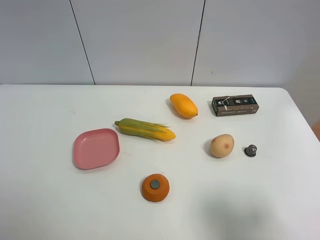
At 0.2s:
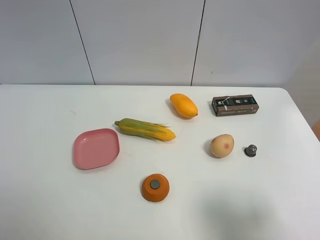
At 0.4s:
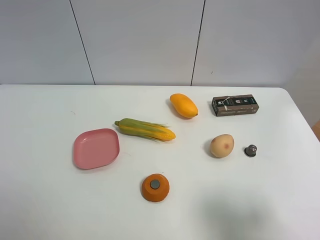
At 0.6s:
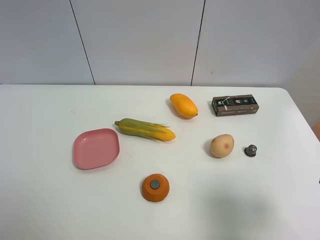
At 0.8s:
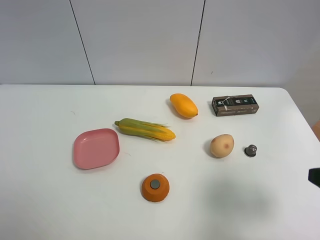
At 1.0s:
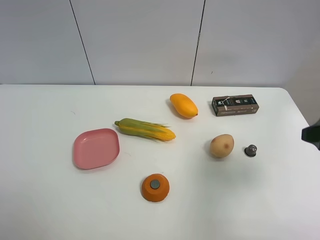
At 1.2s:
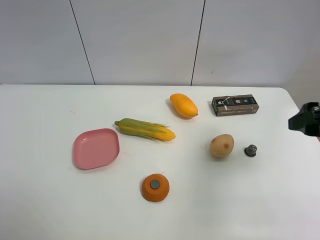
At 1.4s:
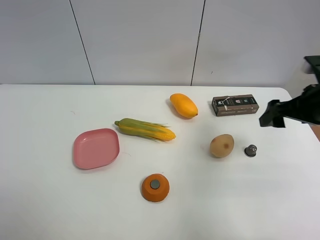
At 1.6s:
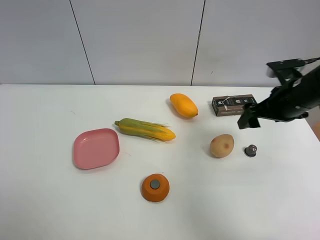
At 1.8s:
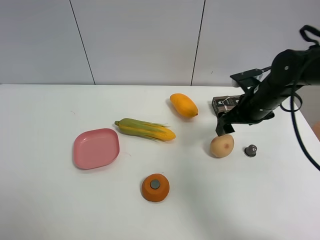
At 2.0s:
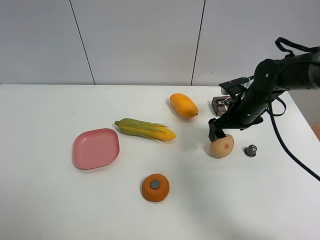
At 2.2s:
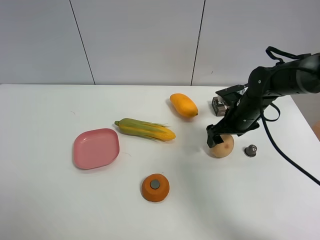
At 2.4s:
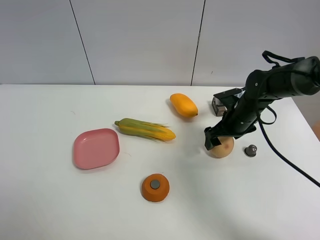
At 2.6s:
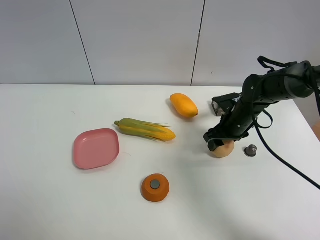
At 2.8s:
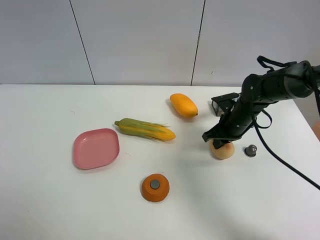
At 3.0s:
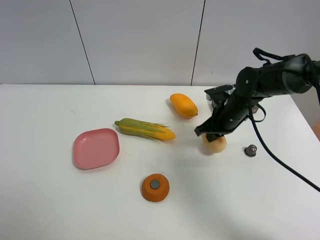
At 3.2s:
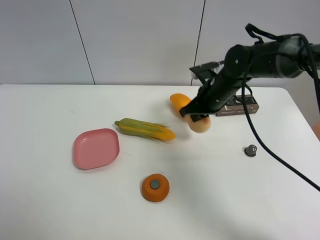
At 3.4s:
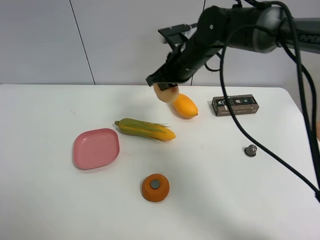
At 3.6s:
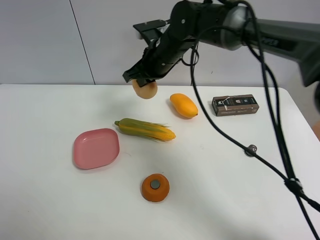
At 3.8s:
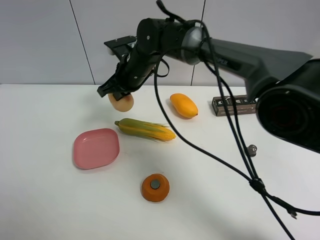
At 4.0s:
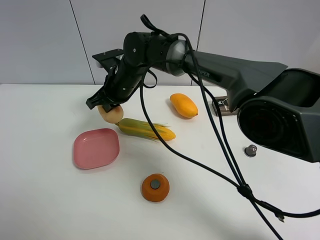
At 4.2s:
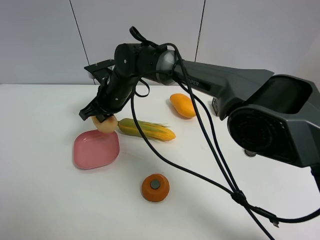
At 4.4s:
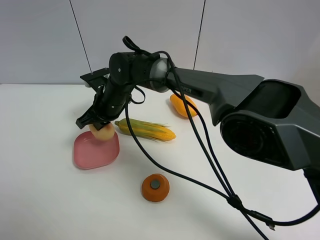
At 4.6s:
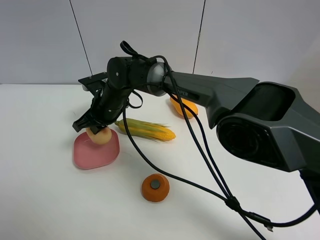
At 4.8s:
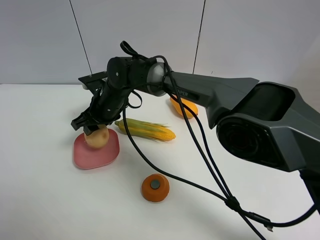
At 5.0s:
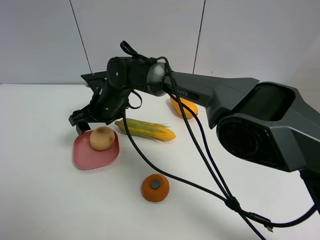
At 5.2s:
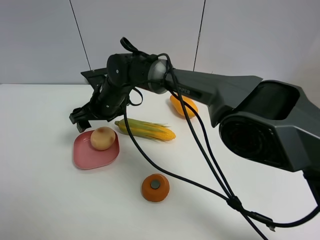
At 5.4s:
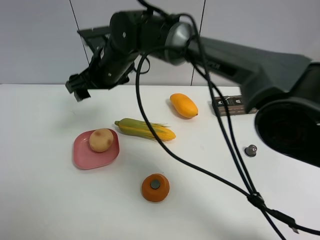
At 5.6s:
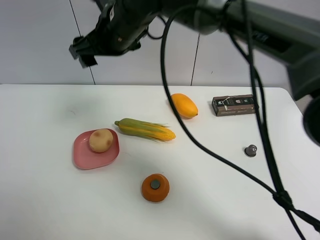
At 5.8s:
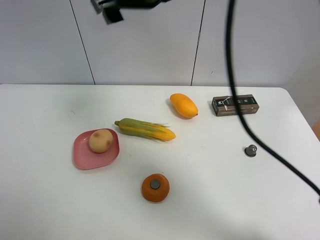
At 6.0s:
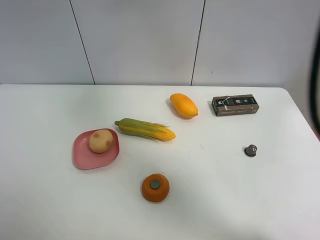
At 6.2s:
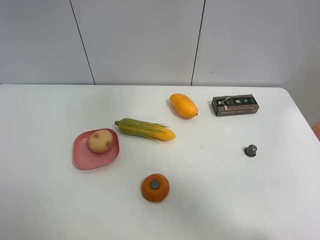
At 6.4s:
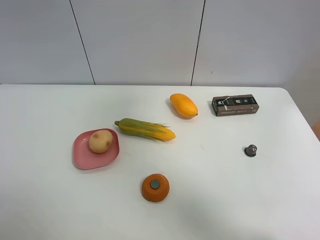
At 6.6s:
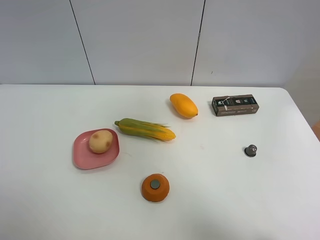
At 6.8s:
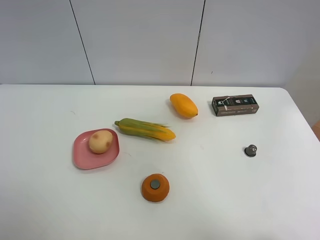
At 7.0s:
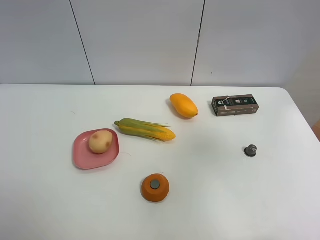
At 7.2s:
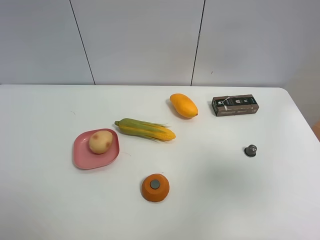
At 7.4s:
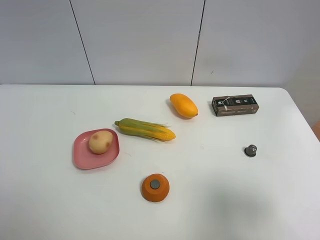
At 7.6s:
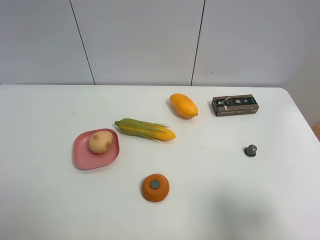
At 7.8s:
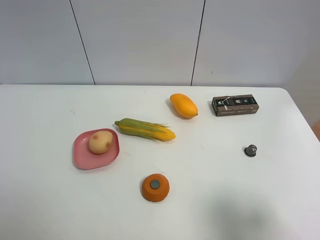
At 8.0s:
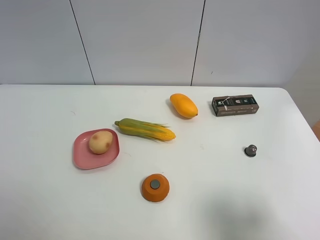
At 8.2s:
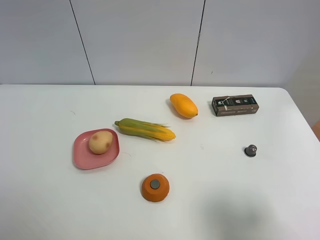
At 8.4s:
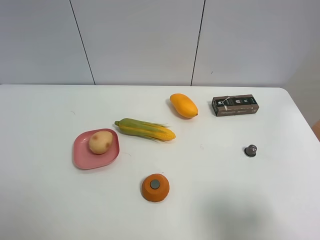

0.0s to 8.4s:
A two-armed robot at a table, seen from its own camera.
Task of the whole recording: the gripper move the object.
Step, 0.0s to 2.8s: Grasp the egg yolk pastry with the right gripper.
Step, 3.0s to 5.2s: Place the egg yolk pastry into the pink plate with the right gripper.
0.0s to 1.4s: The right gripper goes some 25 cm forward.
1.4s to 2.8s: The right gripper heads downward, to the left and forward, covering some 20 cm, and closes its fingers.
2.8s to 4.2s: The right gripper heads to the left, covering roughly 30 cm.
4.2s to 5.6s: The right gripper moves upward, roughly 15 cm, and opens up.
5.6s to 7.0s: The right gripper heads to the right and backward, covering approximately 50 cm.
7.0s to 8.4s: The right gripper is displaced downward and backward by roughly 20 cm.

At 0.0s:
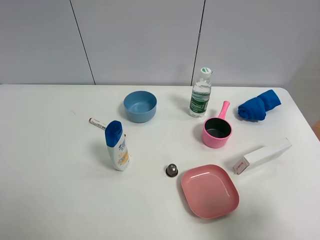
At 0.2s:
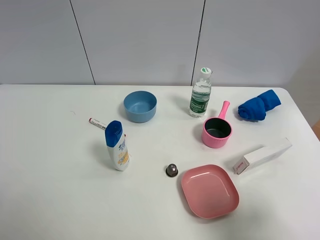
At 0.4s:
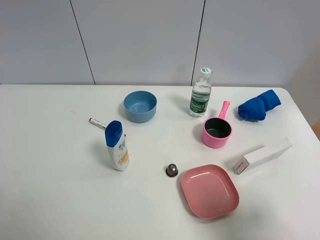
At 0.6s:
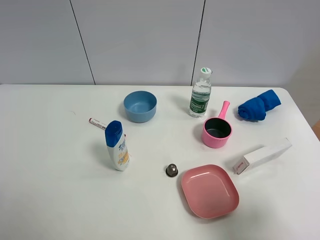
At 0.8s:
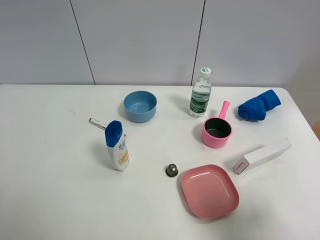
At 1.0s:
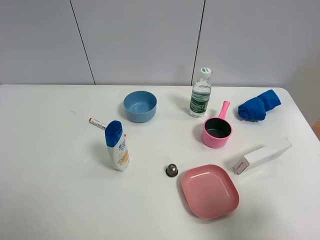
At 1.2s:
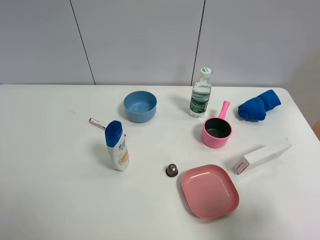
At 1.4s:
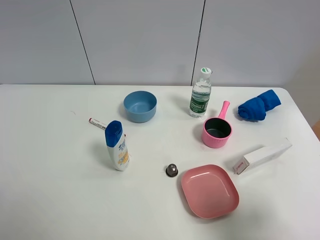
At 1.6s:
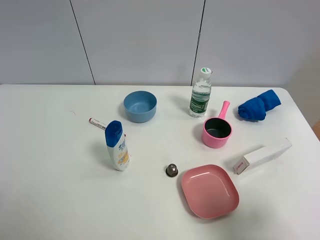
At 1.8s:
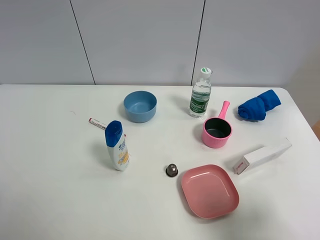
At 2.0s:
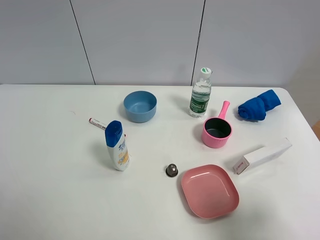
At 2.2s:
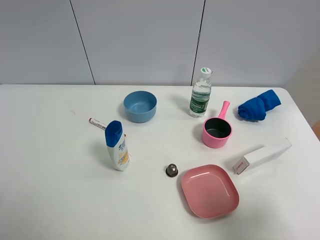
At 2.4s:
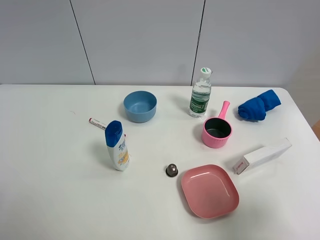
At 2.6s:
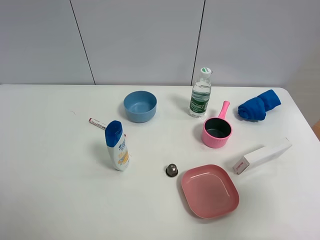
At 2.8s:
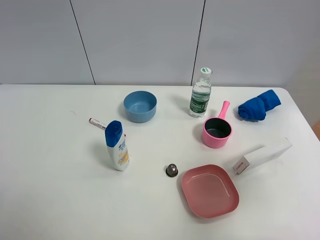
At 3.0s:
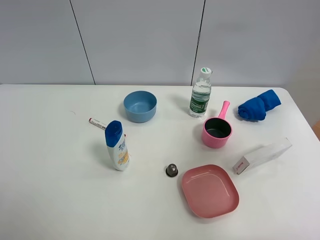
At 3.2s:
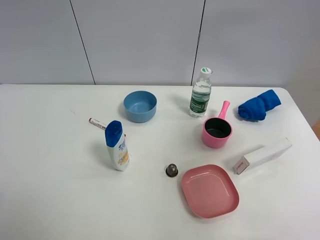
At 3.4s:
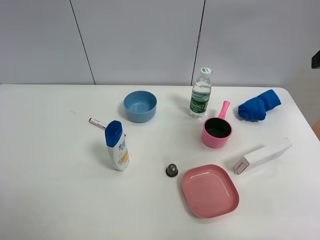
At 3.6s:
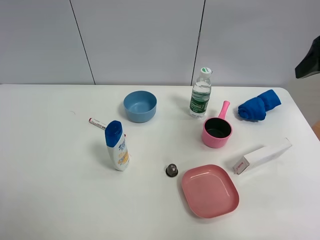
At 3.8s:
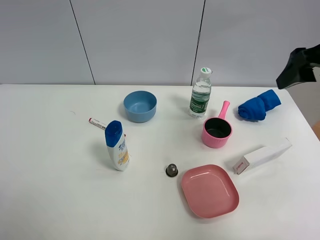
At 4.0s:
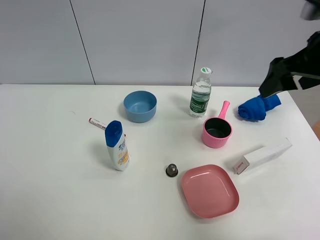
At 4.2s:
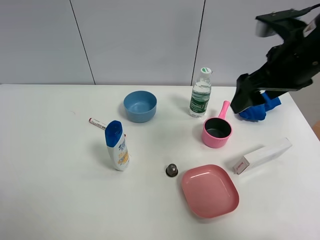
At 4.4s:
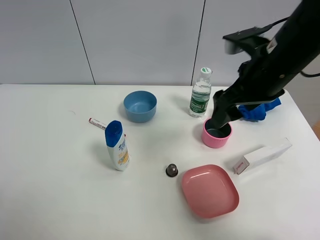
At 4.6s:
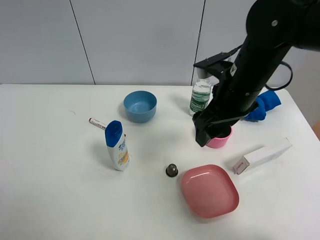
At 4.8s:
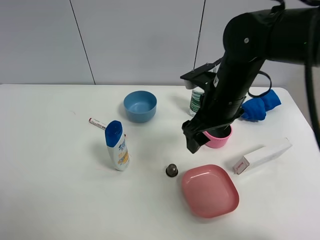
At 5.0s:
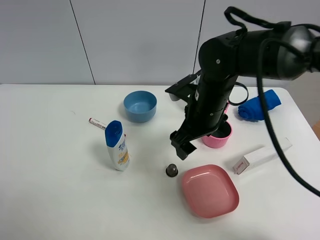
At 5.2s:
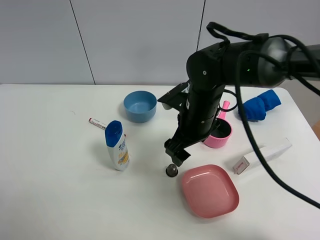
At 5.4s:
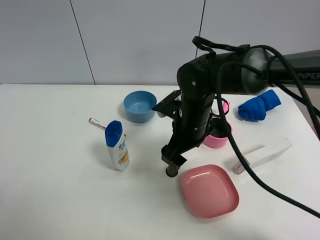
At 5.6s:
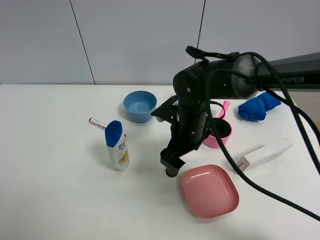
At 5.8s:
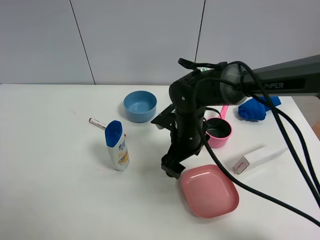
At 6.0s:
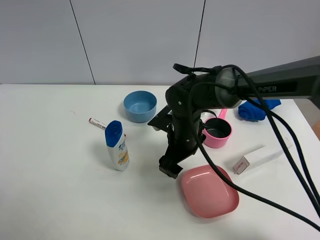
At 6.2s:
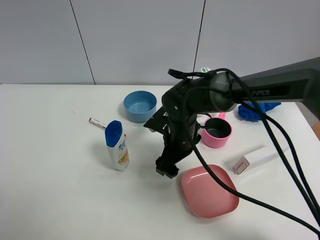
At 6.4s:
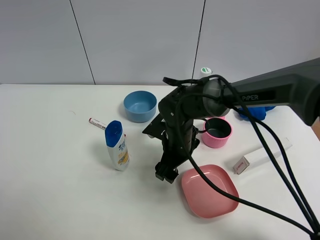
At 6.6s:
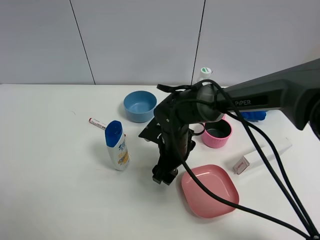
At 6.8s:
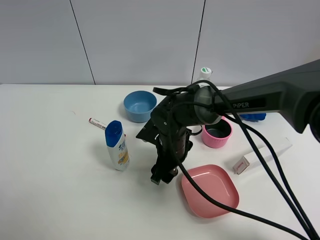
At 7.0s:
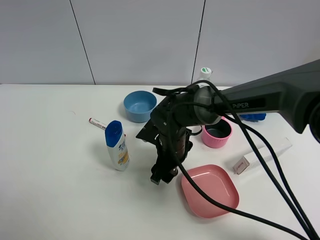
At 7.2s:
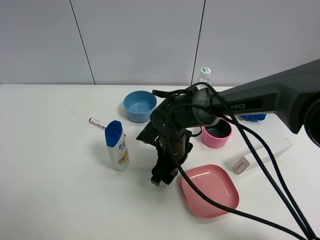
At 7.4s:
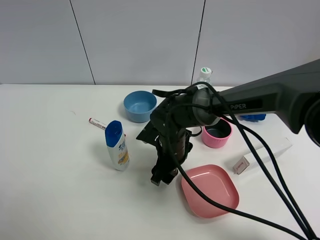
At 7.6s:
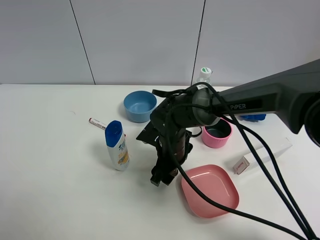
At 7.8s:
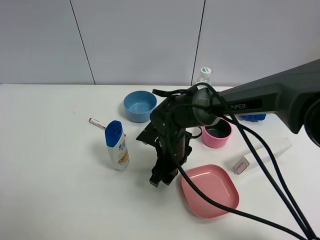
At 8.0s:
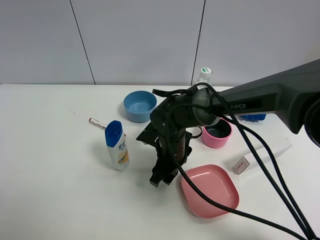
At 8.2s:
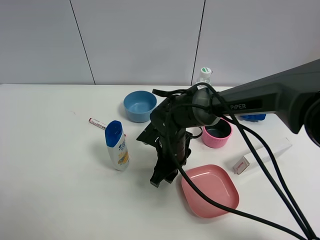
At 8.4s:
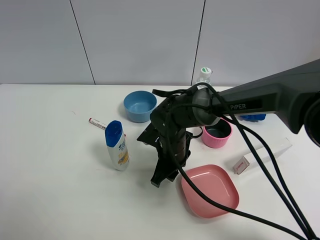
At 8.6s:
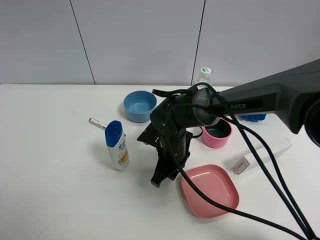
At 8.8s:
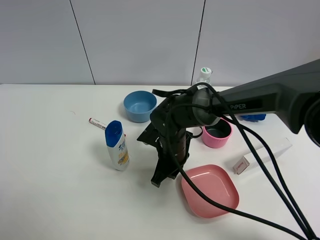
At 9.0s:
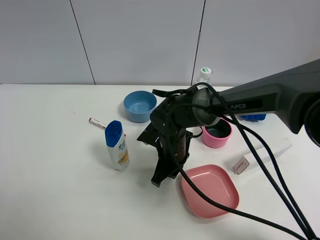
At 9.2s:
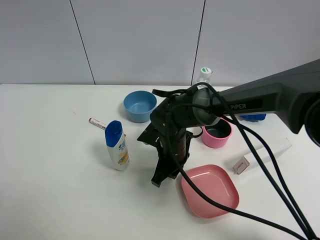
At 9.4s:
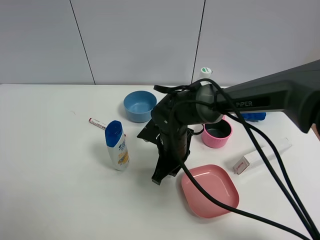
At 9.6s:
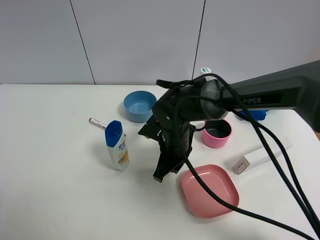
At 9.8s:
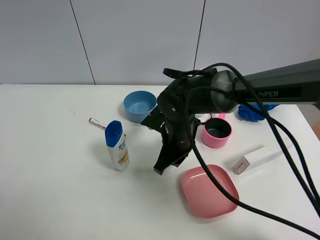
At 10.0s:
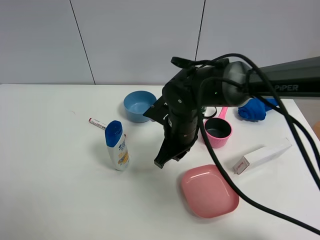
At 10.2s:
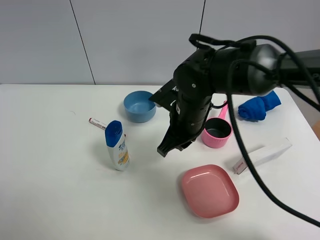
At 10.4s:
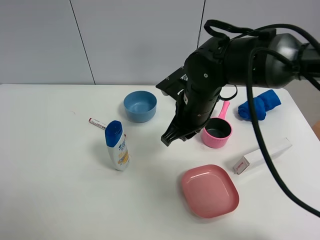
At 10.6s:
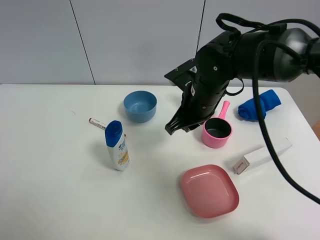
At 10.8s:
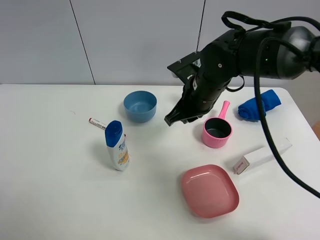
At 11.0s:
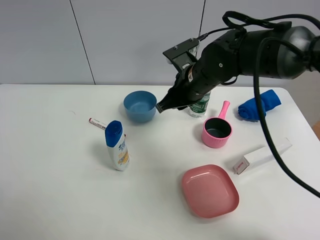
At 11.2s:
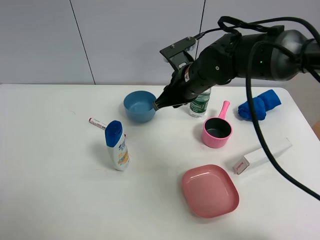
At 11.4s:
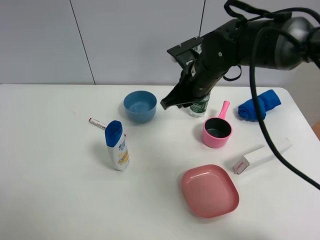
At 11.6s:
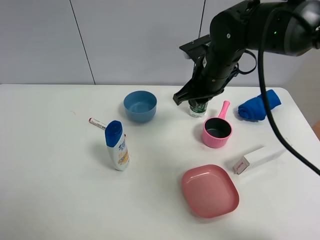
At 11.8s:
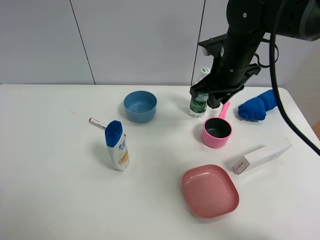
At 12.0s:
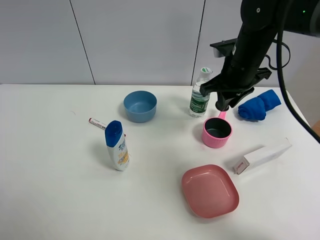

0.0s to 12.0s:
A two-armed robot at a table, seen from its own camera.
Task of the whole recording: the gripper move the object.
Step, 0.0s to 8.8s: Grasp the coffee capsule with the right gripper.
0.0s to 1.6s: Both grippers stay about where they are.
1.6s to 3.0s: The right gripper moves forward and upward, about 20 cm.
3.0s to 4.4s: The right gripper heads to the left, forward and downward, covering approximately 20 cm.
4.4s to 6.0s: The right gripper goes approximately 20 cm downward and to the left.
6.0s to 7.6s: The grippers make only small movements.
7.6s to 9.0s: The right gripper closes.
9.0s to 10.4s: The right gripper is displaced upward by about 10 cm.
10.4s to 12.0s: The right gripper is displaced to the right and forward by some 10 cm.

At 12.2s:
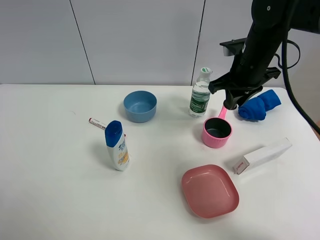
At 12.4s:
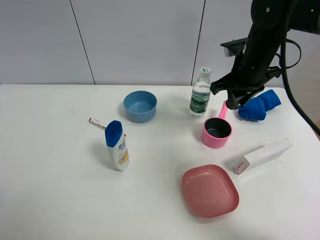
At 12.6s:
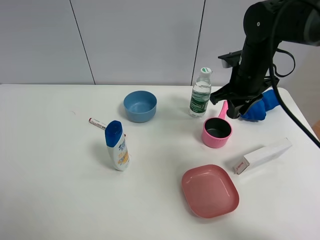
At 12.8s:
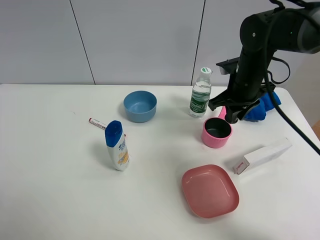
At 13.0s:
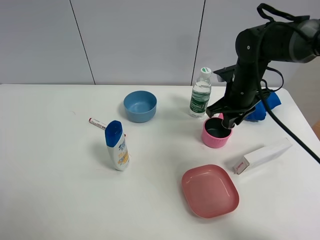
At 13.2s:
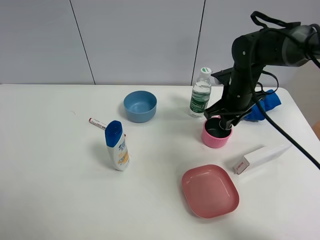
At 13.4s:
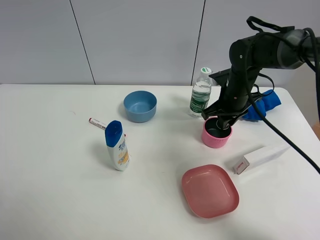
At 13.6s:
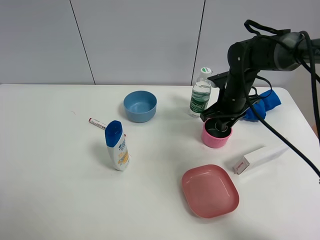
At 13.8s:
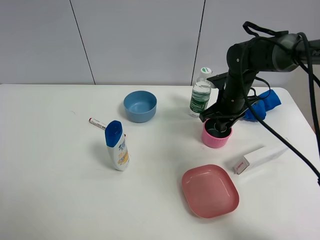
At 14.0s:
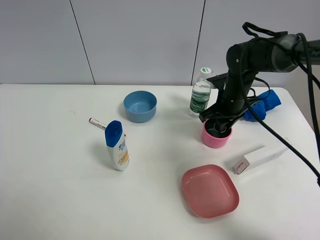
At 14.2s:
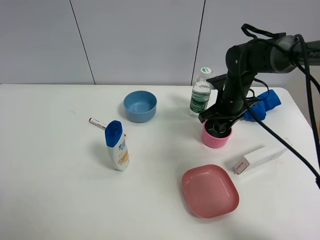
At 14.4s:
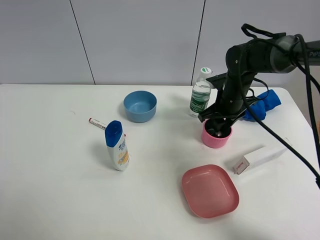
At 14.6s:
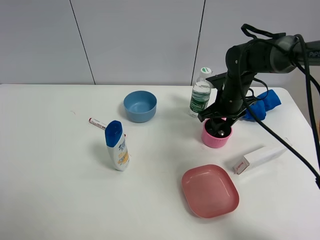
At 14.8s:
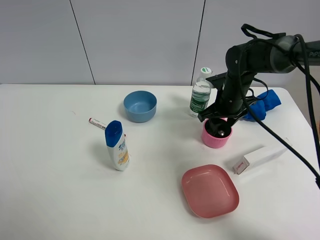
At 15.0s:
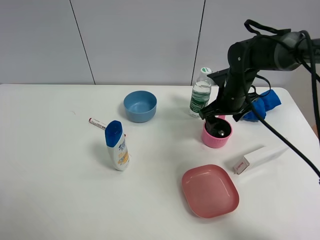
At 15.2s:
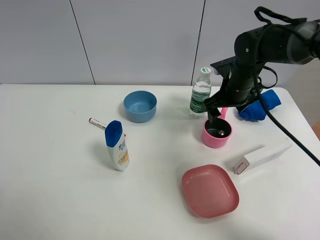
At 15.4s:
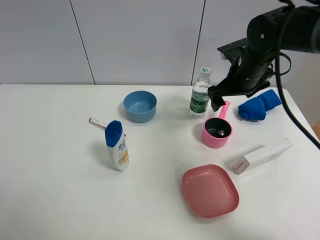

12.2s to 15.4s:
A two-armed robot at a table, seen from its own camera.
Task of the whole recording: the gripper move the object.
Step, 12.2s to 14.4s: Place the coffee capsule into the pink pot with the right gripper.
12.2s to 13.8s: The right gripper is displaced downward by approximately 10 cm.
13.8s to 15.4s: The right gripper heads upward, covering roughly 10 cm, and opens.
